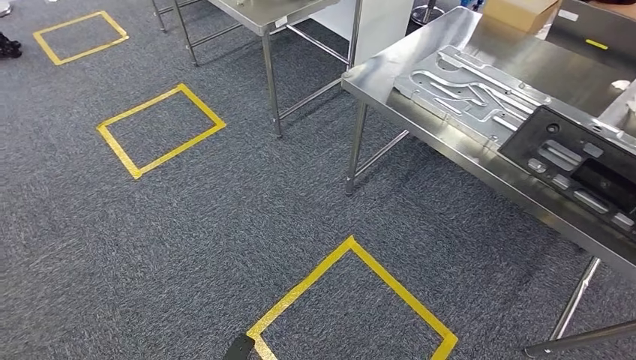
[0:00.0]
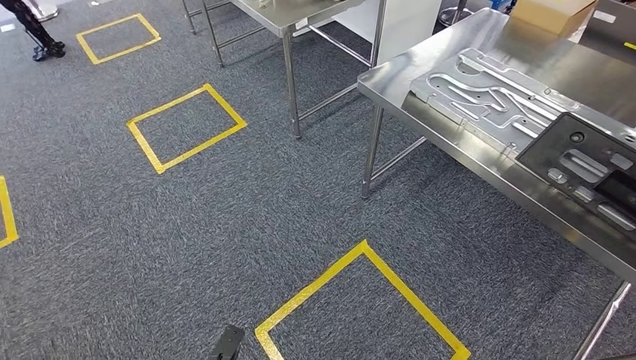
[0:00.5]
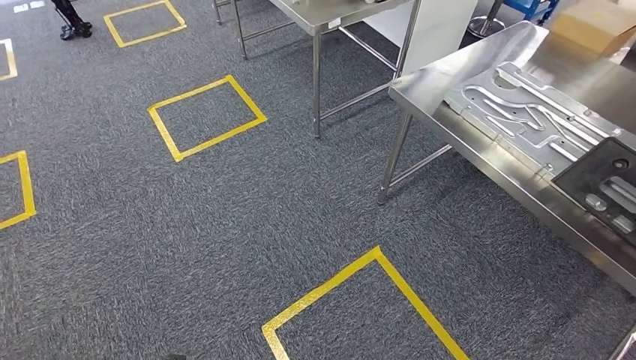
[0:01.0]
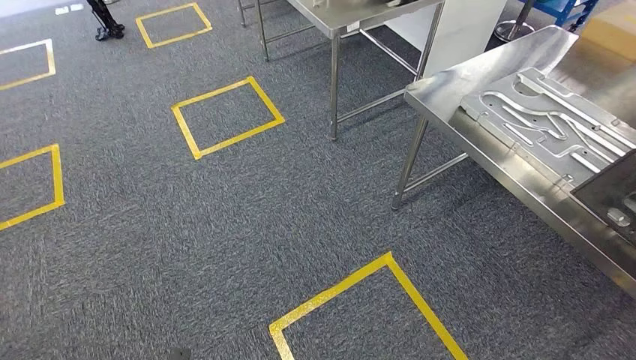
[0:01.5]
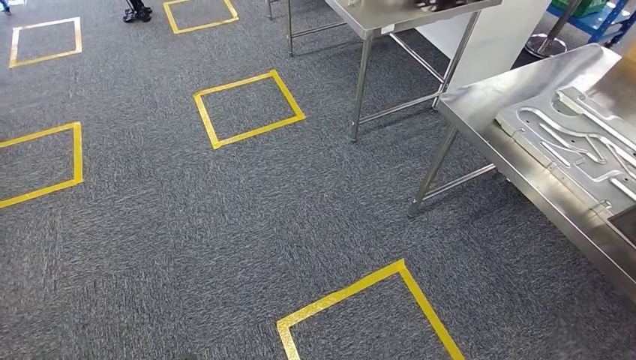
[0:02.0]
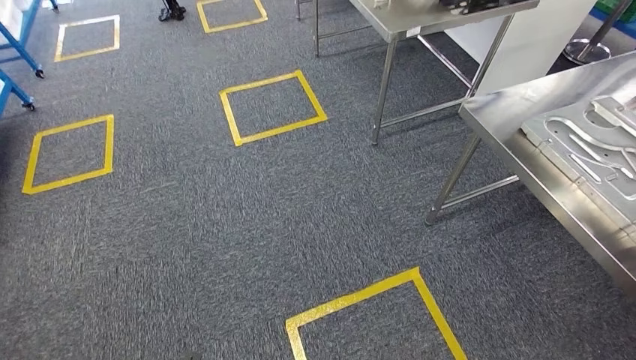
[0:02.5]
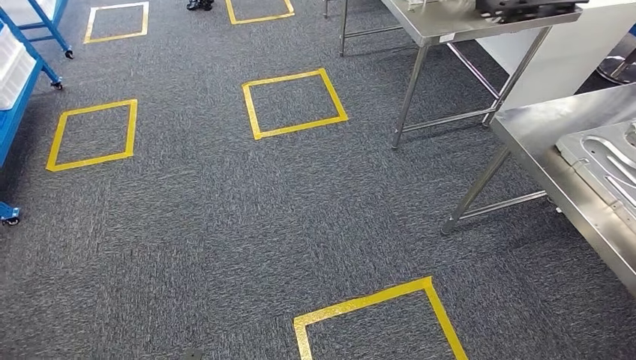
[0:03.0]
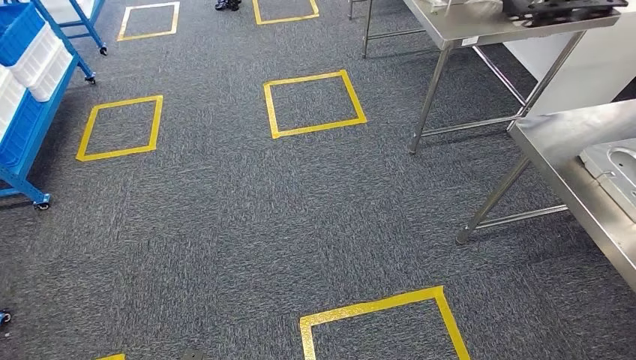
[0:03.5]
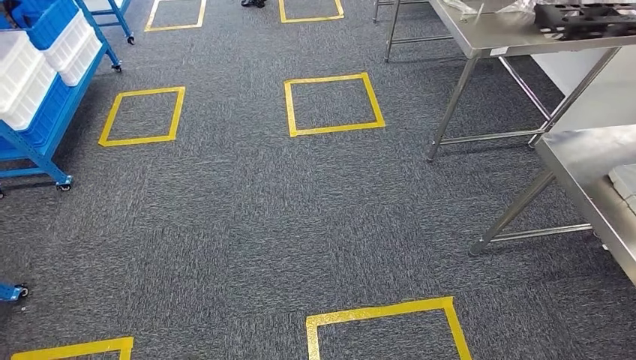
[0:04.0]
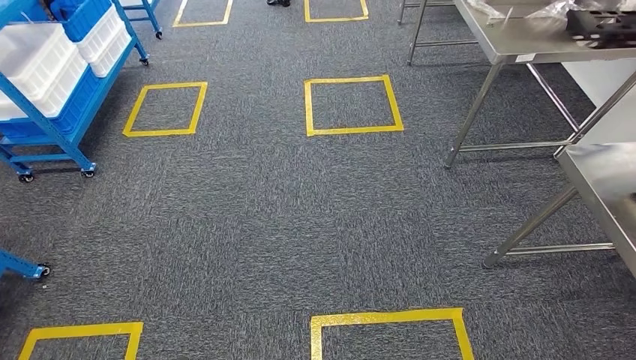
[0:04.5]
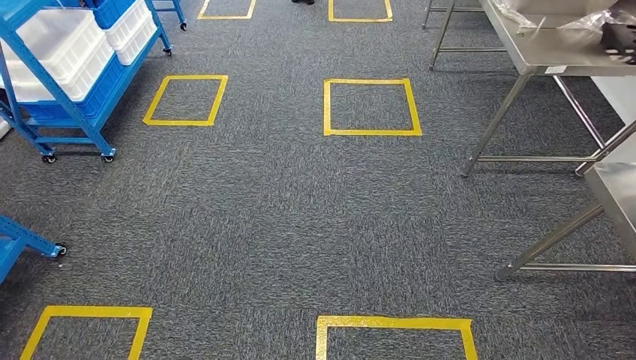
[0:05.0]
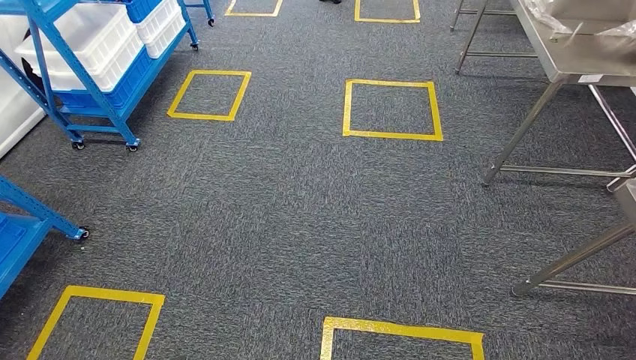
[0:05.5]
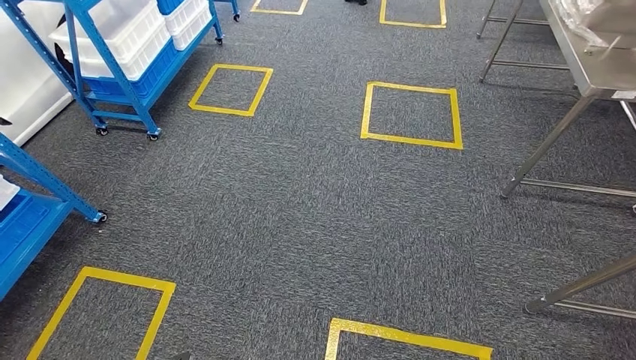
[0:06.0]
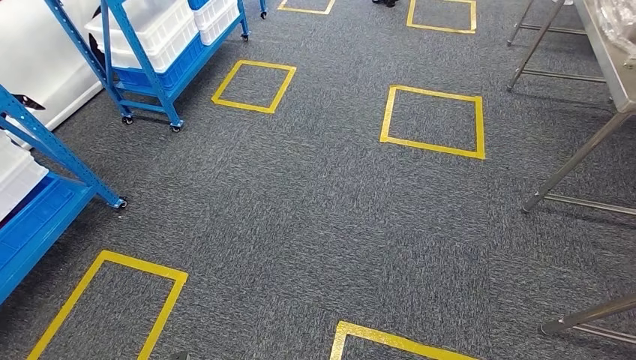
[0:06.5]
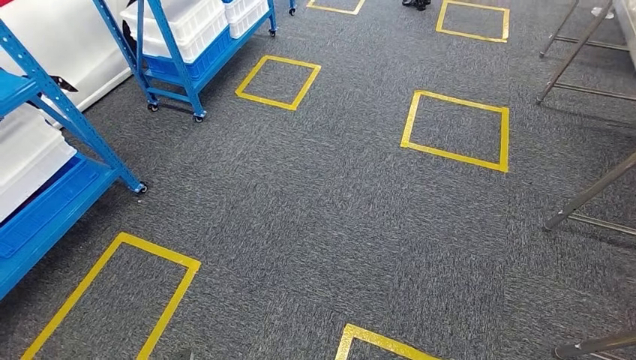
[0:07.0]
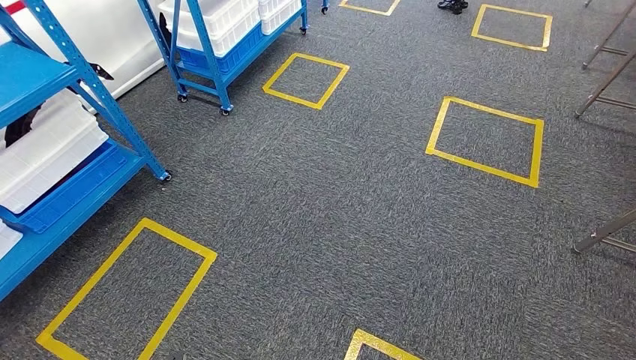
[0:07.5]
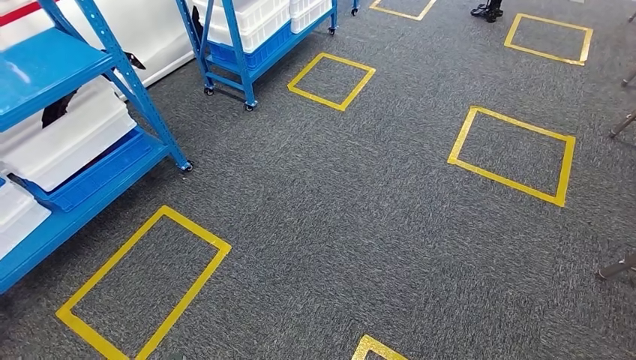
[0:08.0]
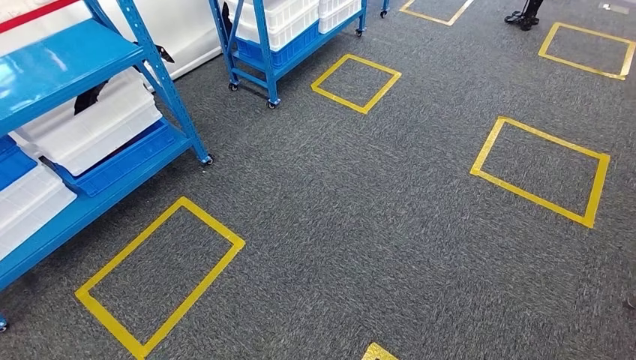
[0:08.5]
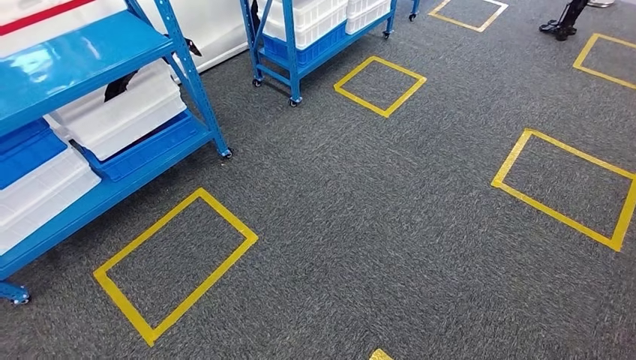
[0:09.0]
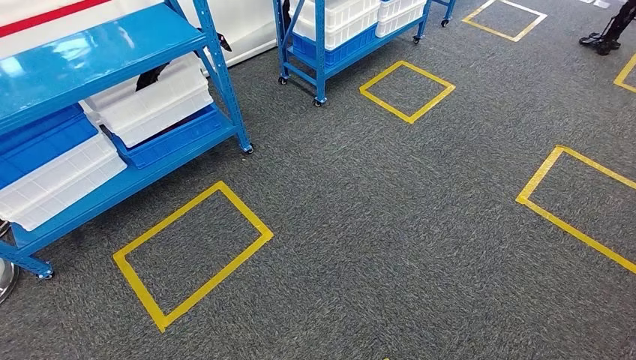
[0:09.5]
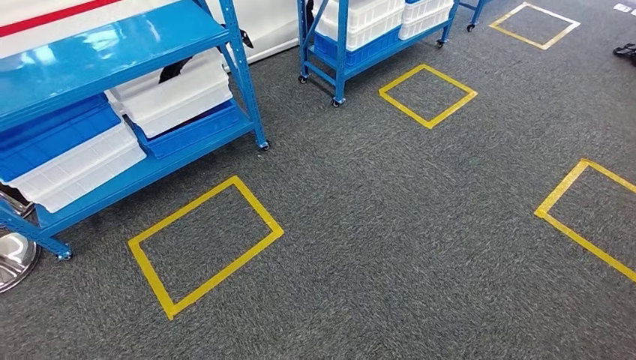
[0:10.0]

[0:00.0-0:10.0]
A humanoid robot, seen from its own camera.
Step, 0:00.0 to 0:10.0: Move to the initial position of the shelf.
